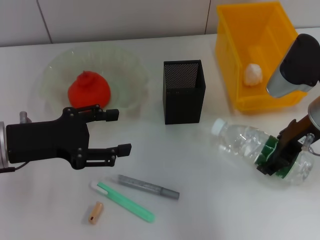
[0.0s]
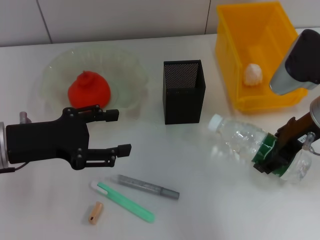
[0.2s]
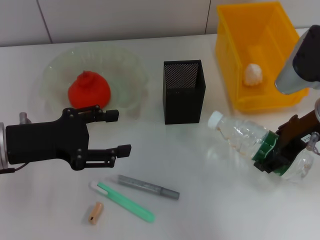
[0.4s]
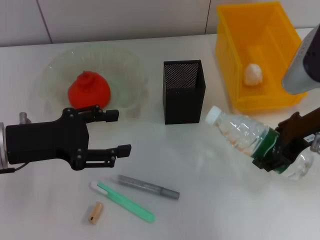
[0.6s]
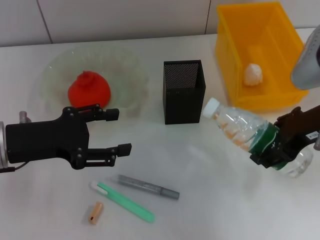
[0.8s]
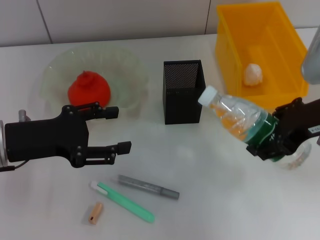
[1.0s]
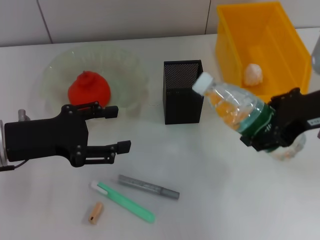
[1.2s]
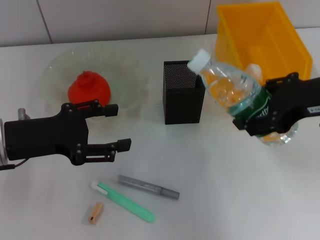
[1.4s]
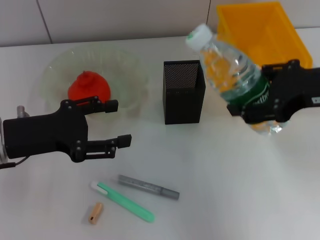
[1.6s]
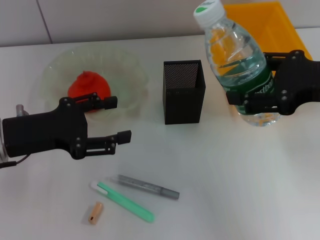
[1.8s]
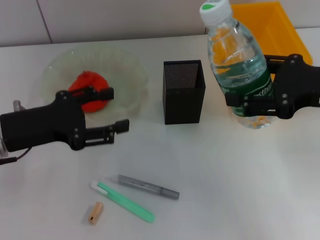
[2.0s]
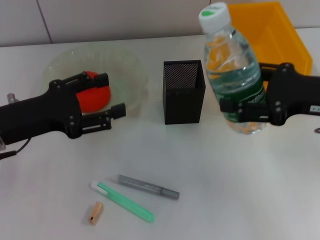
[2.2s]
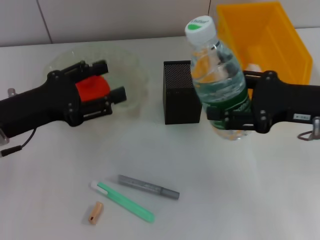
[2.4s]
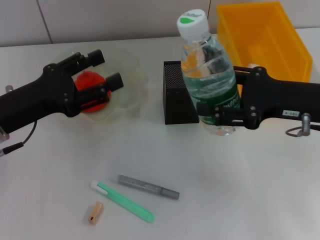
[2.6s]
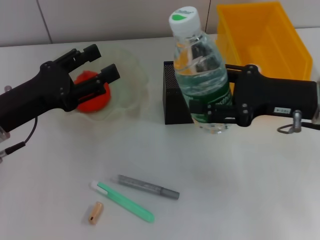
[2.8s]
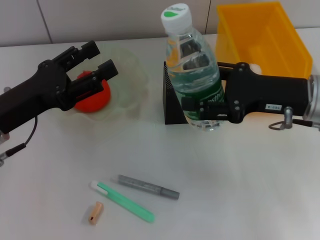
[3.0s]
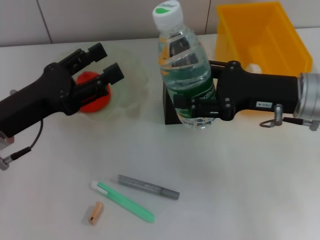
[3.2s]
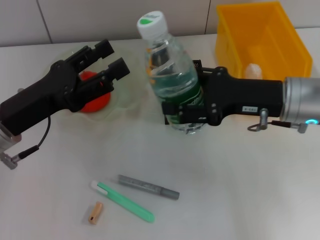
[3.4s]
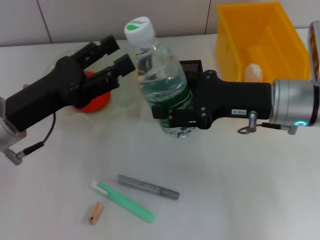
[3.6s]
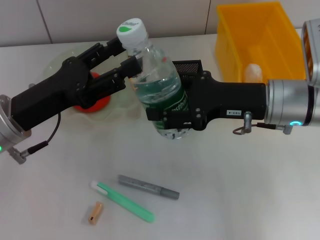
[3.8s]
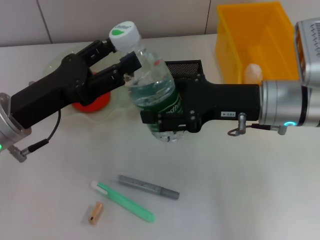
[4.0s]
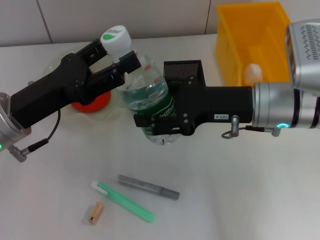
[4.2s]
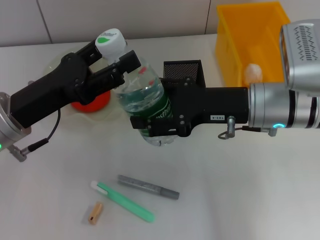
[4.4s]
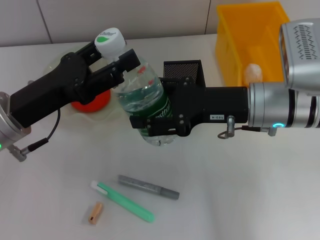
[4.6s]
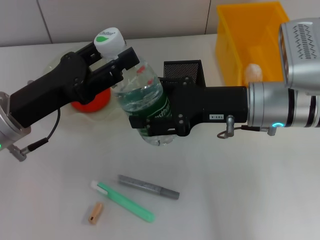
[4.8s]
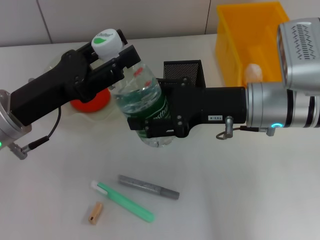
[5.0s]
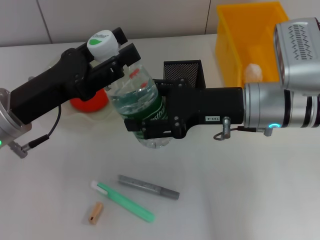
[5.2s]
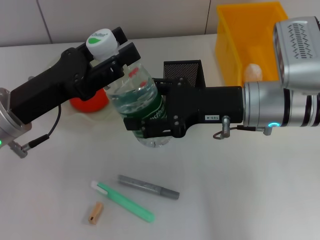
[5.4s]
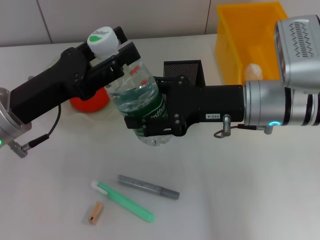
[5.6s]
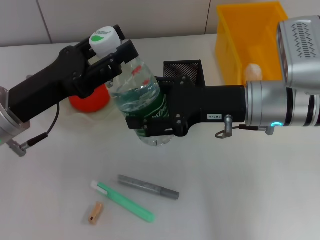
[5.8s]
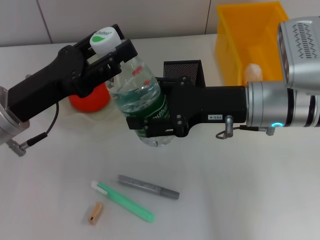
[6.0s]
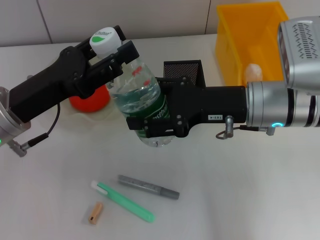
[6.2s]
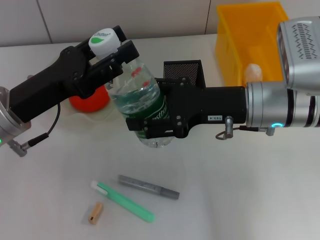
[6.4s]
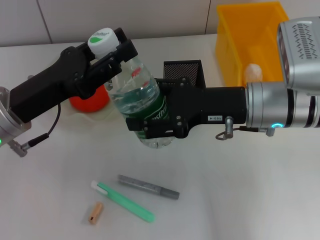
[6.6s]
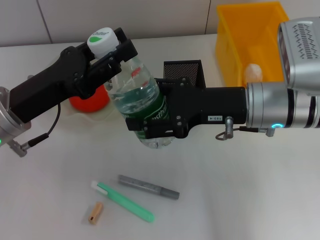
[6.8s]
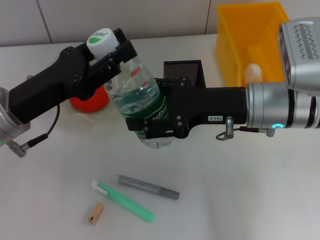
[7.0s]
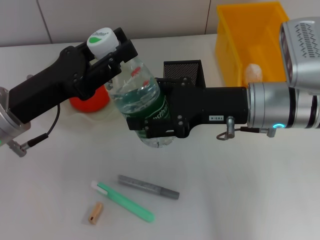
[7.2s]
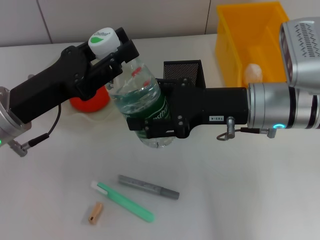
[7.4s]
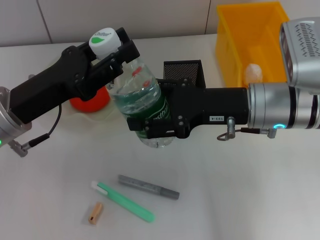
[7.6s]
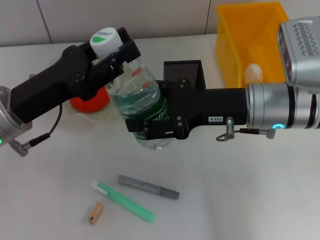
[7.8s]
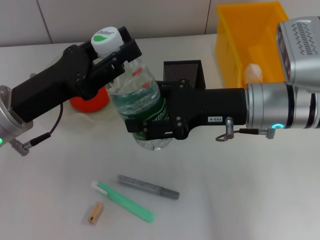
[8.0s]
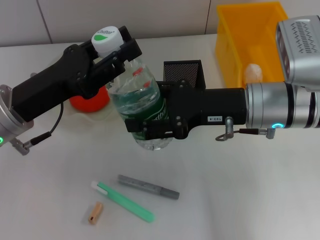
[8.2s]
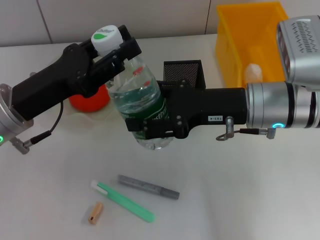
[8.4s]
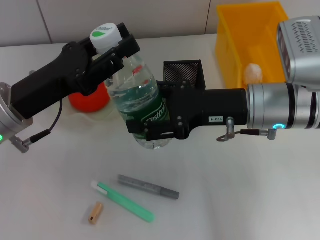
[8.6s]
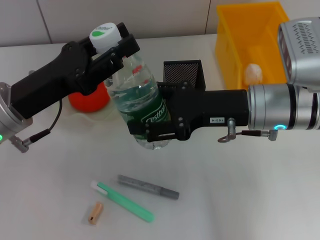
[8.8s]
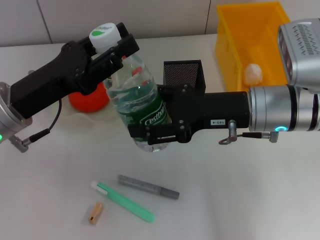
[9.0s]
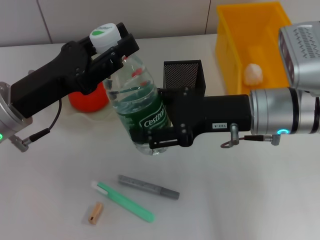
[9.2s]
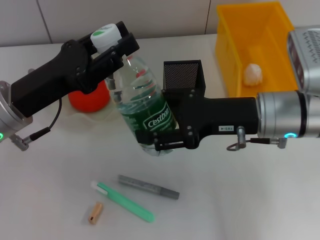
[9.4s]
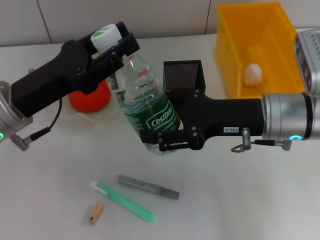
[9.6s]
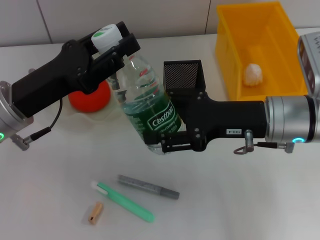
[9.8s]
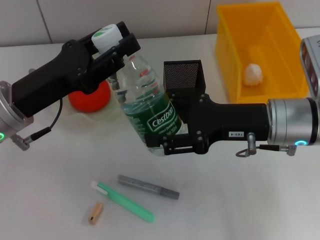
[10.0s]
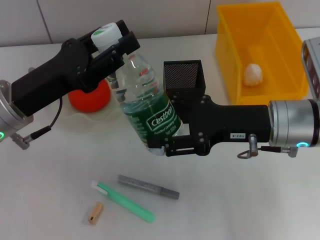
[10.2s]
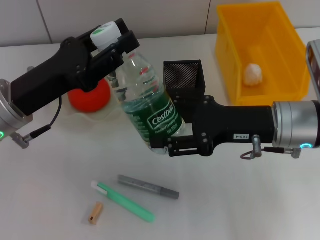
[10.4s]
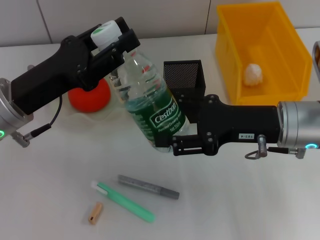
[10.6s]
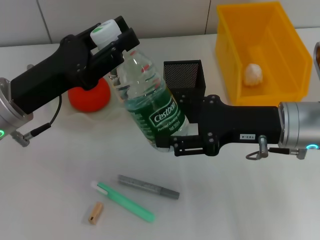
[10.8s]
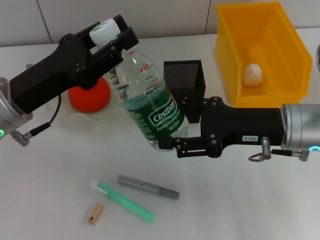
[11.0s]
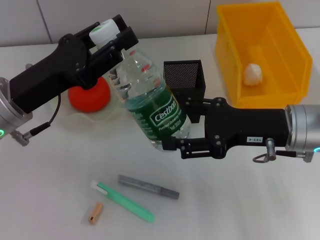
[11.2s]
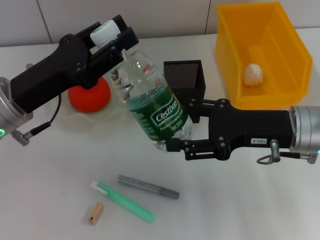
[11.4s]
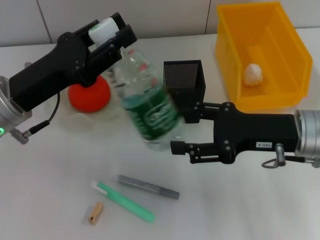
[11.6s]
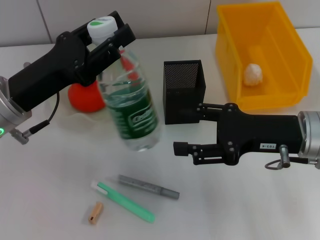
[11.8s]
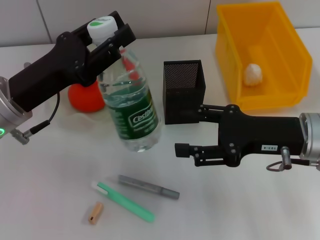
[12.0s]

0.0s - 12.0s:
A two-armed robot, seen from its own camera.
Step, 0.0s - 11.6s: Pass the water bottle from the right hand to the left hand.
0.0s - 1.6s: The right gripper moves upward and backward, some 10 cm.
1.6s - 3.0s: The right gripper heads downward, covering approximately 10 cm.
3.0s - 4.4s: The right gripper goes roughly 5 cm to the left.
4.4s - 7.6s: The two grippers keep their place.
7.6s - 9.0s: Neither gripper changes place.
9.0s - 10.4s: The grippers stay close to where they were, moving slightly.
10.4s - 12.0s: There are only small adjustments of the grippers.

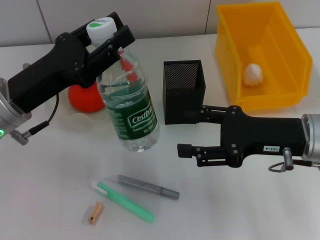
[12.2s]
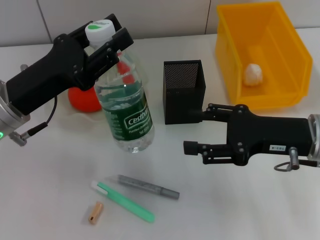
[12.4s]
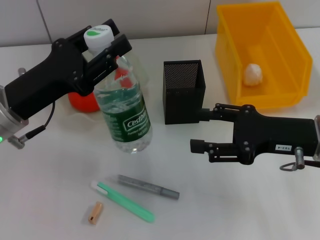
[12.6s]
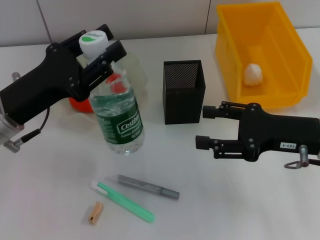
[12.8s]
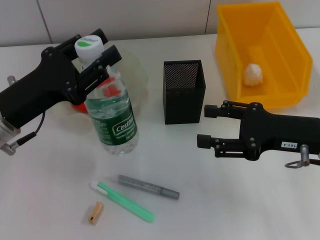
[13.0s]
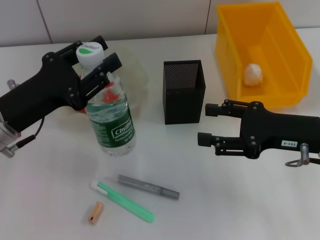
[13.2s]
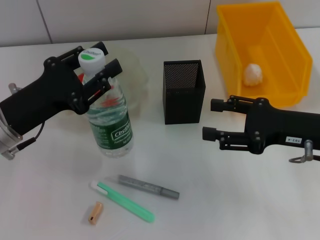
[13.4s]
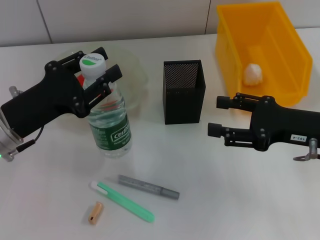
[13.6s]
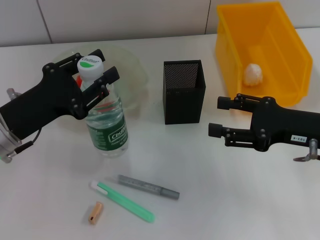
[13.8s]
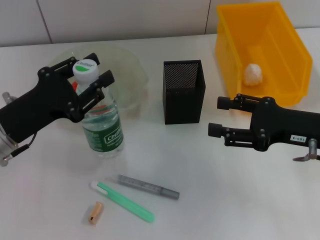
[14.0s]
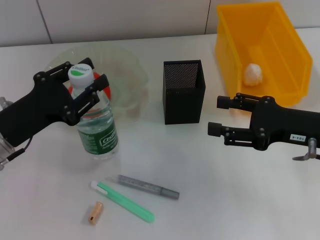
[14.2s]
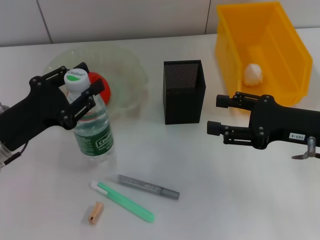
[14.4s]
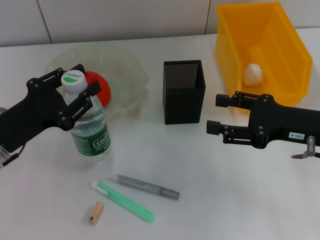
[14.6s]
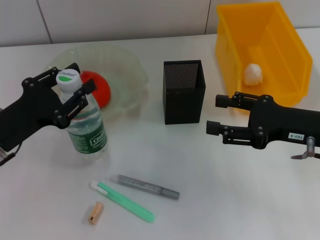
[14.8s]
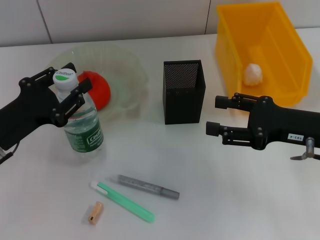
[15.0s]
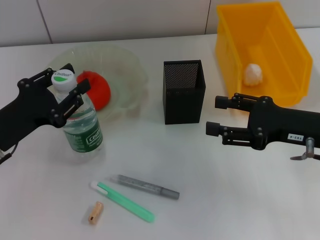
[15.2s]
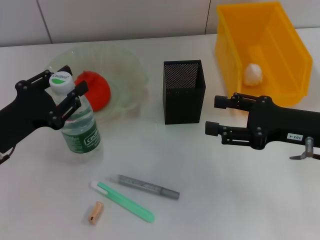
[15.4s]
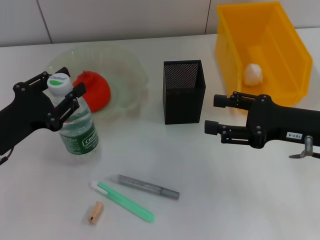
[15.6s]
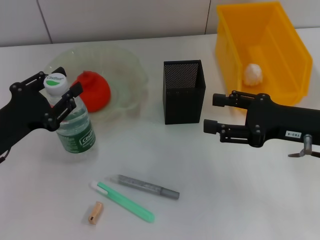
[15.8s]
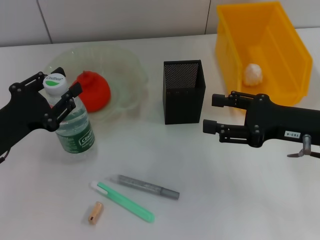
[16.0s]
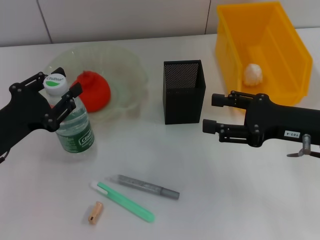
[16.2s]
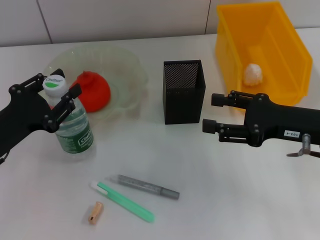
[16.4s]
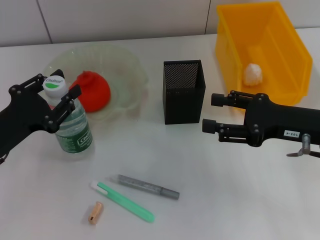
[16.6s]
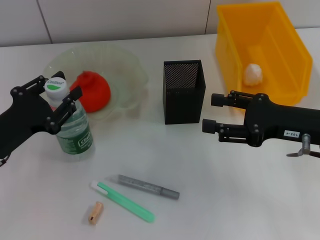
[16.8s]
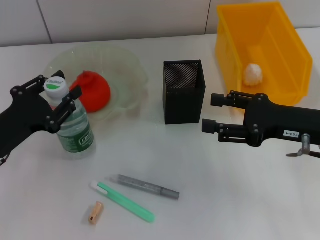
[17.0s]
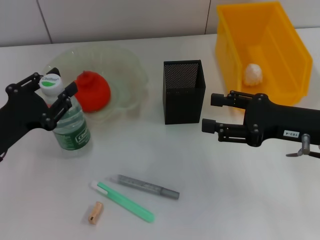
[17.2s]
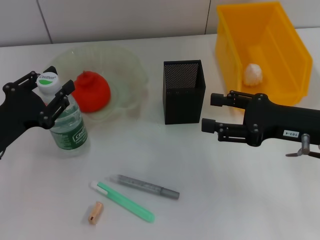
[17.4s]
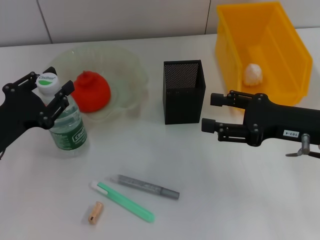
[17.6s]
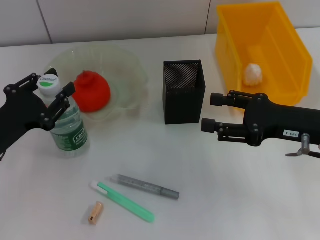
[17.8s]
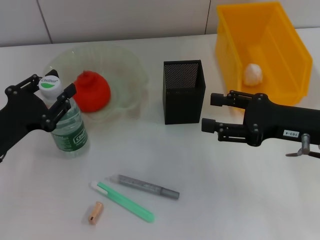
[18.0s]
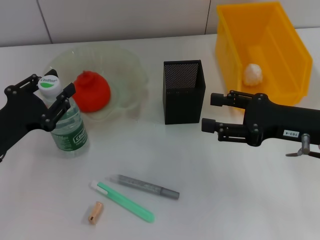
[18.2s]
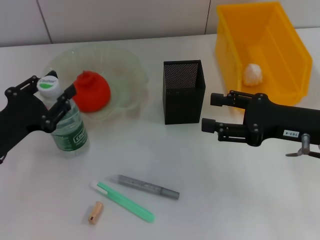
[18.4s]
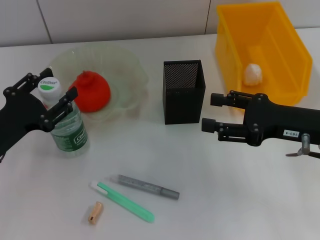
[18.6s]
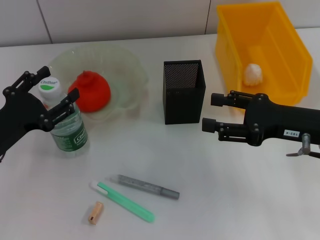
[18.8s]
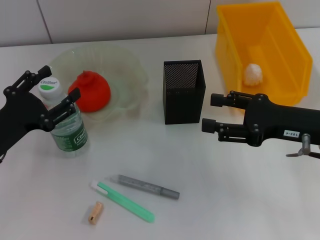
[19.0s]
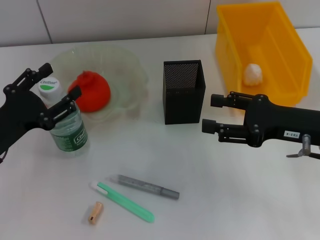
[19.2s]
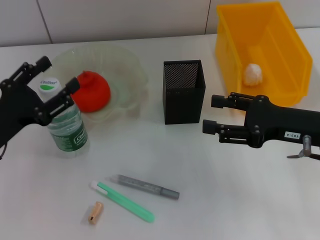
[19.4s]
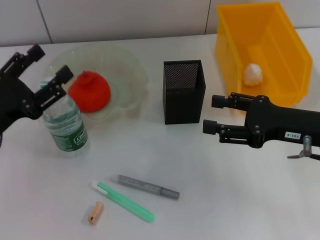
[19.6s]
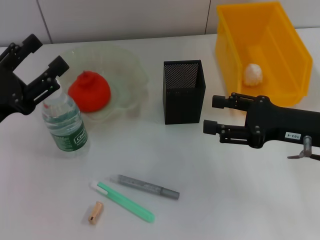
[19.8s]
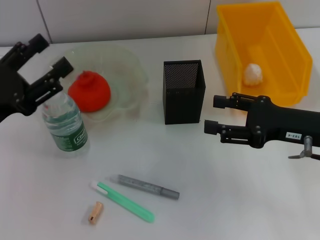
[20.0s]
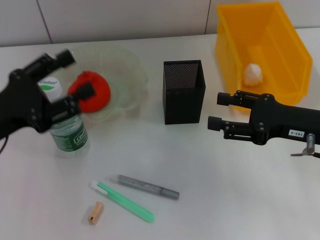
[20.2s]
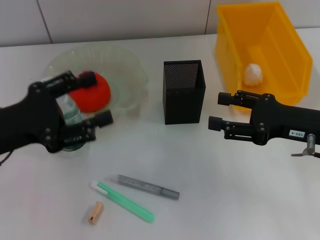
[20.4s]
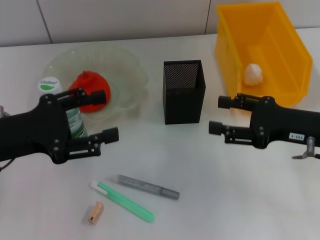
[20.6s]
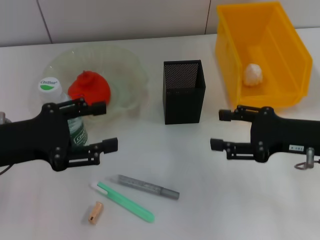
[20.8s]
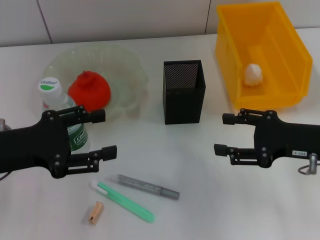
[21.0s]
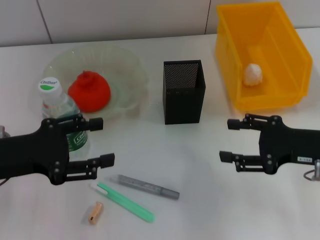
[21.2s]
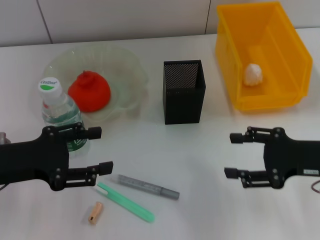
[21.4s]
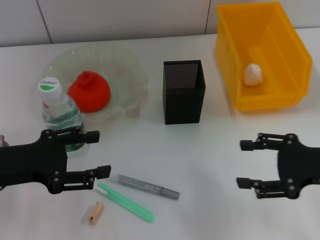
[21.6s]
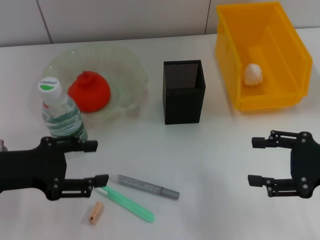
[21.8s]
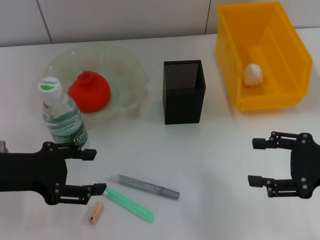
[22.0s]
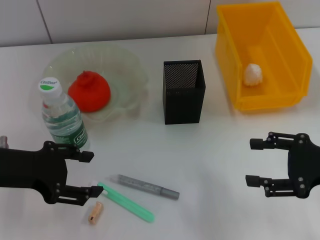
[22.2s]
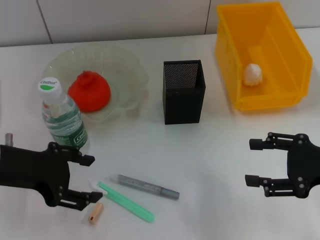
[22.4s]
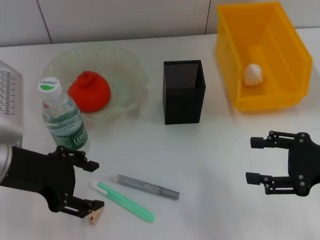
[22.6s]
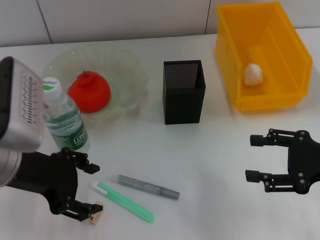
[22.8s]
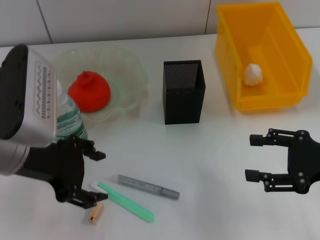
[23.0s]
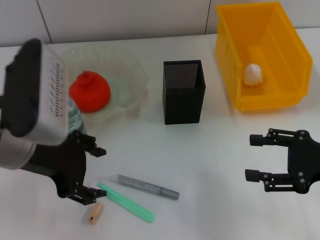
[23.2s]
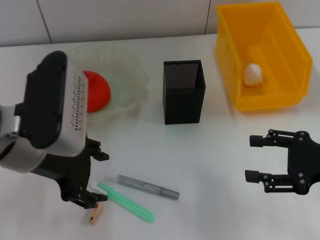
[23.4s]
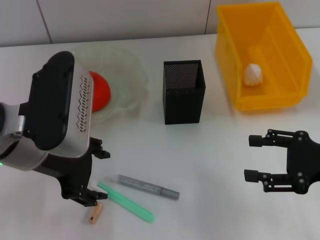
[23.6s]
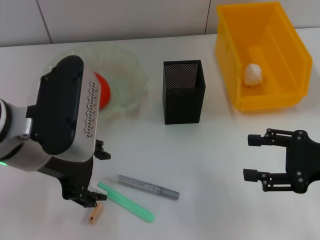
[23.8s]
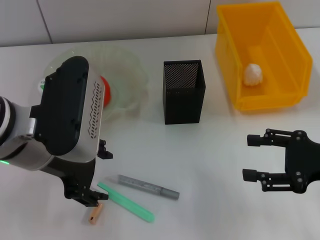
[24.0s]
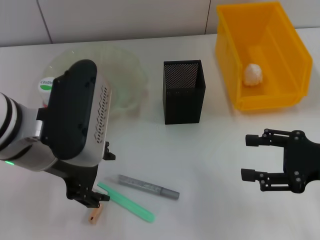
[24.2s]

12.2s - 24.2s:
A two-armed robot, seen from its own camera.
Step, 12.2s - 18.6s: Place the water bottle on the table with the left hand.
13.8s - 15.2s: The grippers make only small movements.
15.2s - 16.6s: Neither gripper changes place.
16.6s - 18.2s: Both grippers stay about where they are.
18.2s - 19.8s: The left gripper opens up.
21.2s - 22.6s: The left gripper changes place by about 5 cm.
22.6s - 24.2s: The left gripper moves to the right, about 10 cm.
